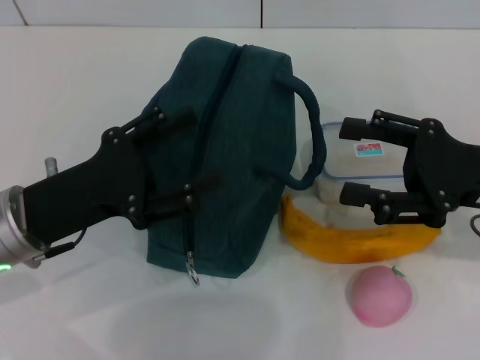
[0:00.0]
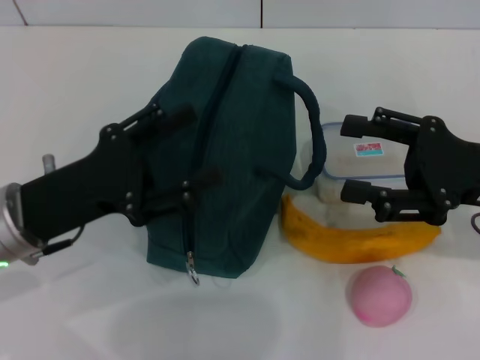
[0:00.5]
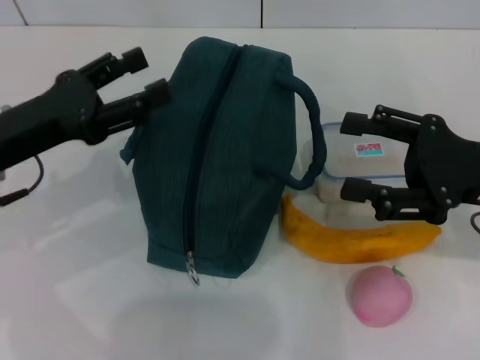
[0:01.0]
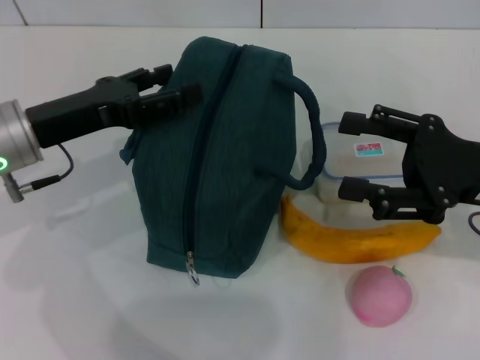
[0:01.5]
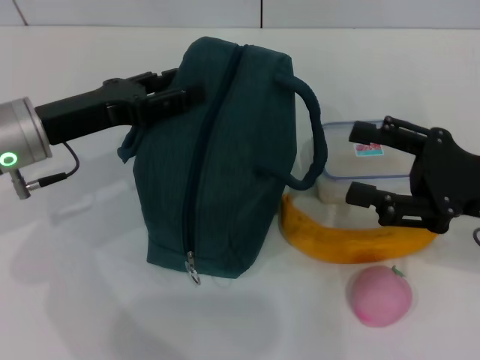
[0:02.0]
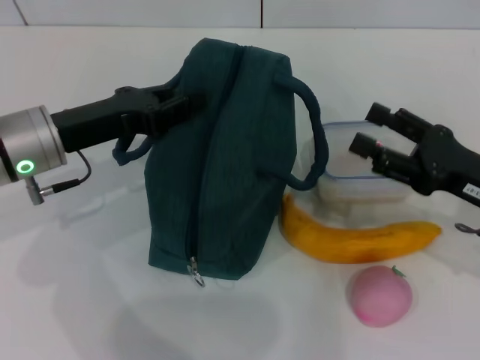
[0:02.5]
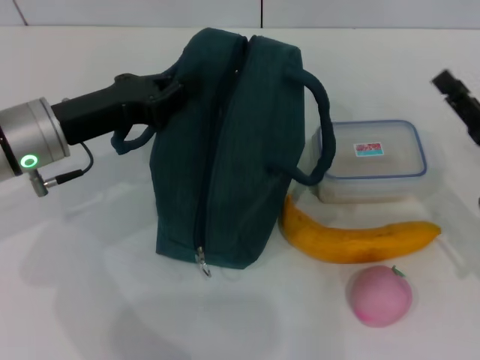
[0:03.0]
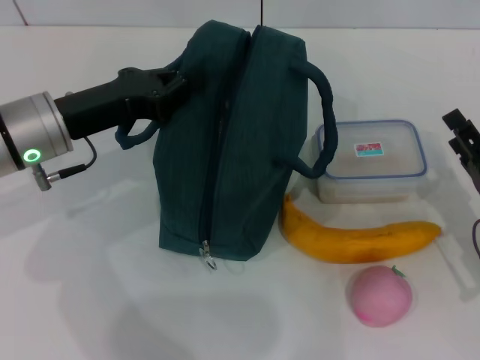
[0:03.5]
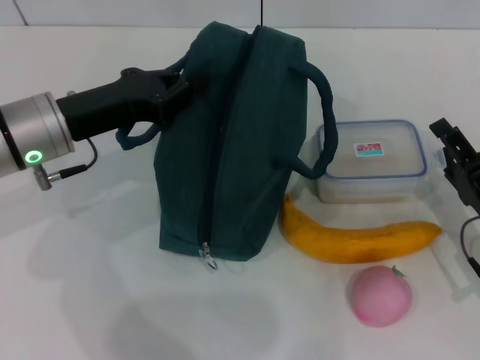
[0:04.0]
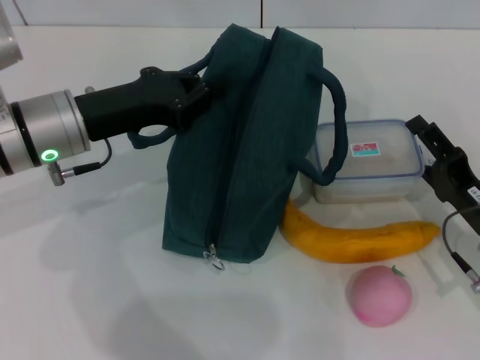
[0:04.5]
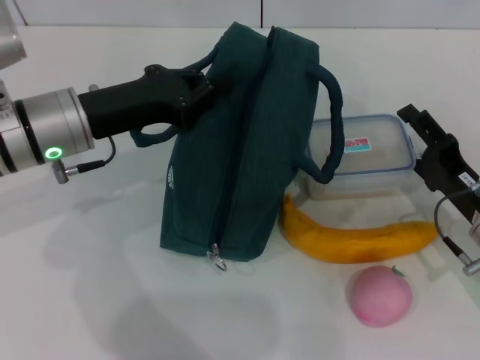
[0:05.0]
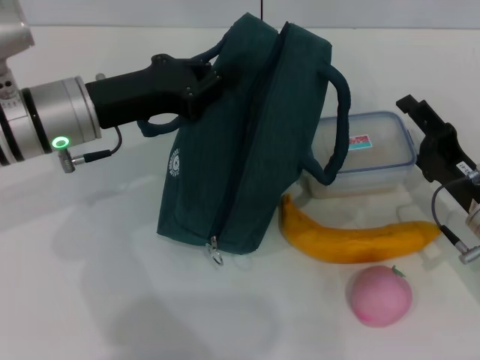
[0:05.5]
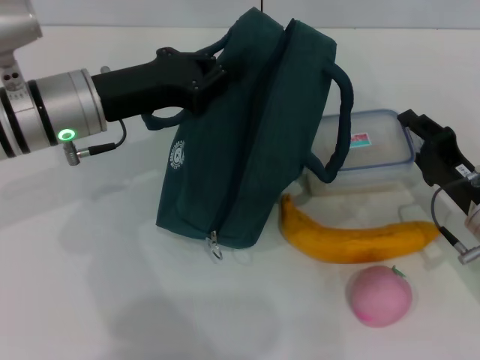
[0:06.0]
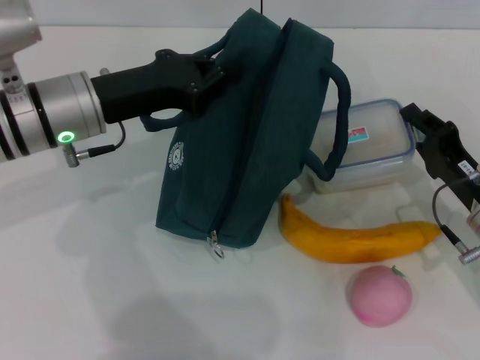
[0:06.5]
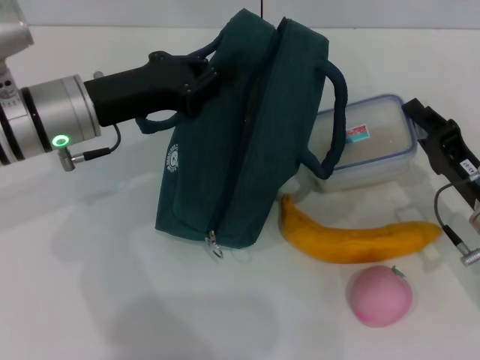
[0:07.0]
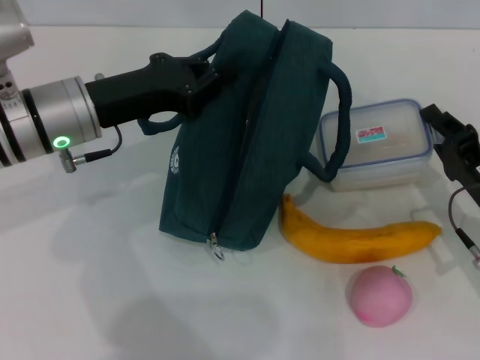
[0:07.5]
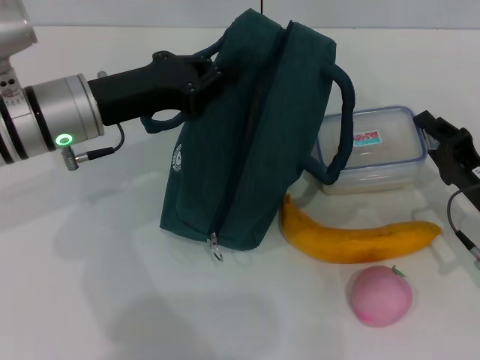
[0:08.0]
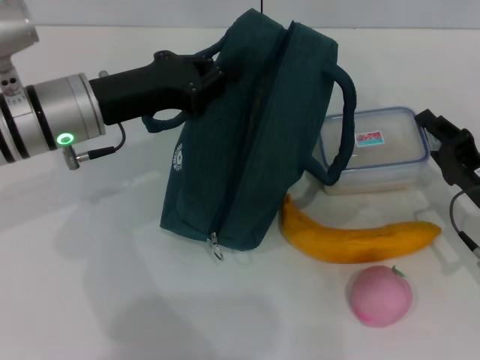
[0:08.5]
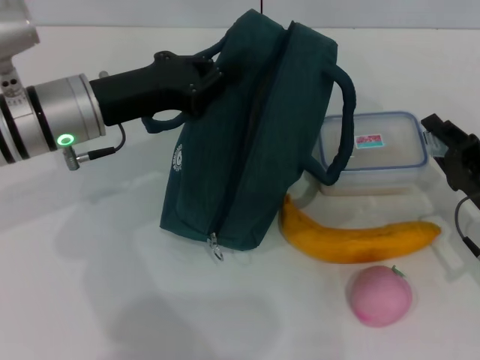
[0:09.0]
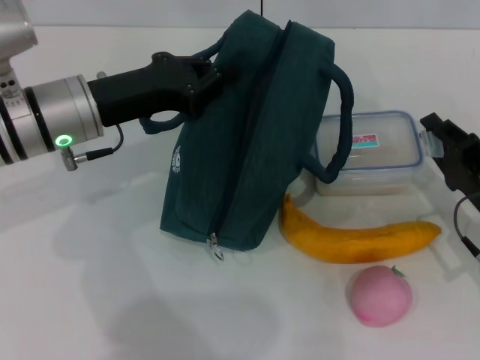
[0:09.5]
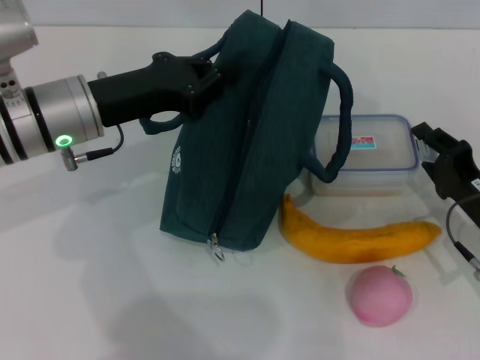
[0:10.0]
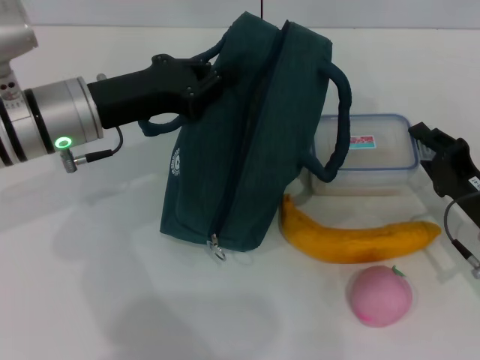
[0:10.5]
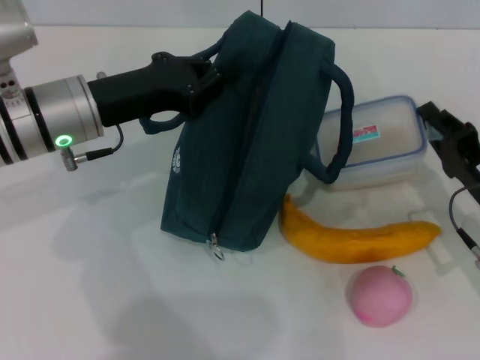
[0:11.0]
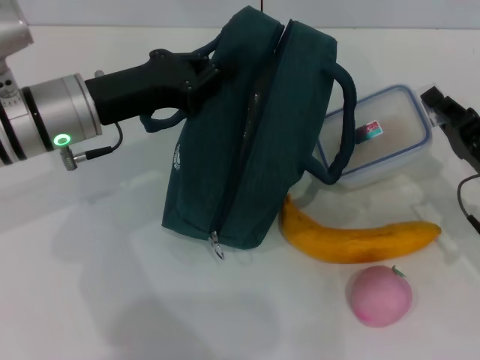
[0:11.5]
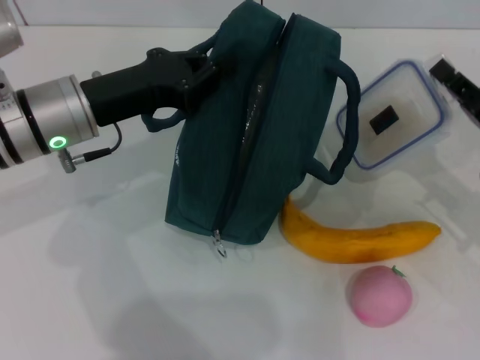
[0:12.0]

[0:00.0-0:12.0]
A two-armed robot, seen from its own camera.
Step, 0:00.0 to 0:03.5: Hold the lunch bag with your left hand.
Step, 0:04.0 to 0:10.5: Pick up the lunch box with your right hand.
0:00.0 to 0:02.0: The left gripper is displaced forward by about 10 cm.
0:02.0 to 0:04.0: The right gripper heads downward, covering about 10 cm, while the left gripper closes.
0:04.0 to 0:06.0: The grippers stay close to where they were, moving slightly.
0:06.0 to 0:08.0: The right gripper closes up.
0:08.0 to 0:10.0: The grippers make only small movements.
0:10.0 to 0:12.0: The right gripper is displaced upward by about 5 cm.

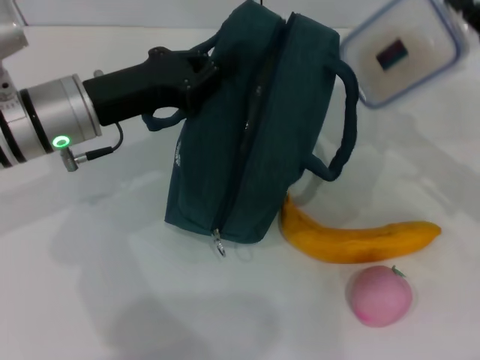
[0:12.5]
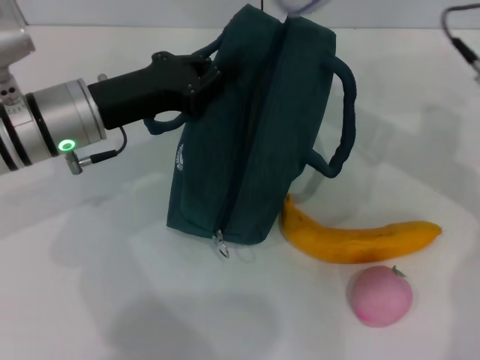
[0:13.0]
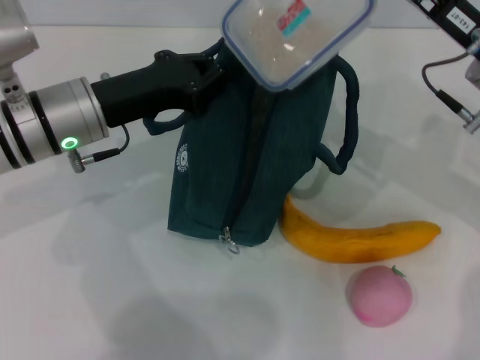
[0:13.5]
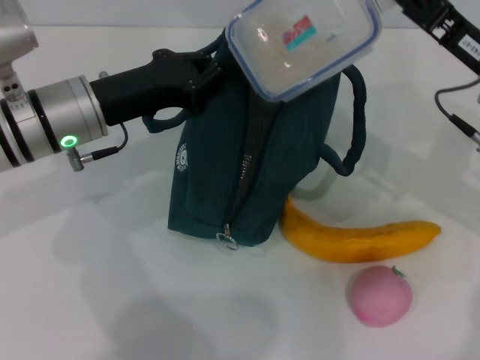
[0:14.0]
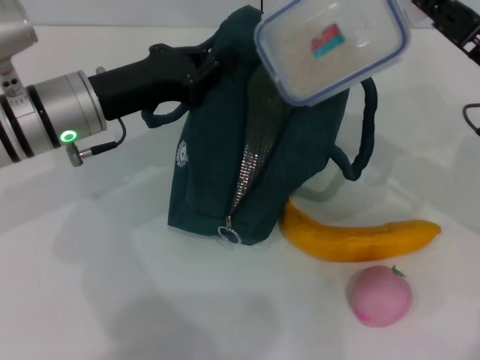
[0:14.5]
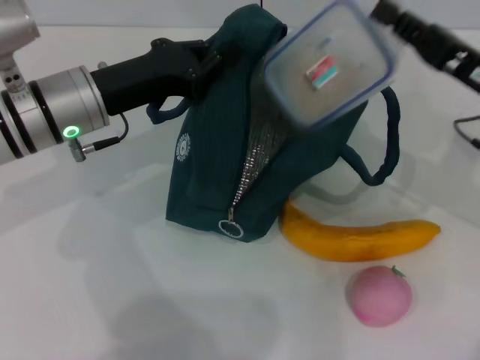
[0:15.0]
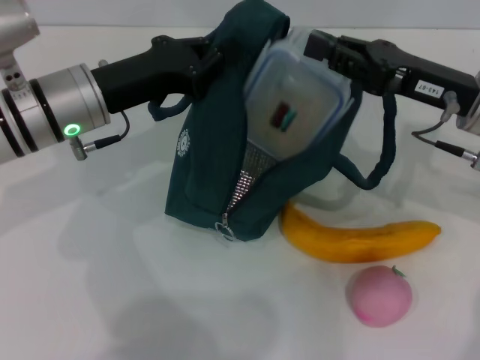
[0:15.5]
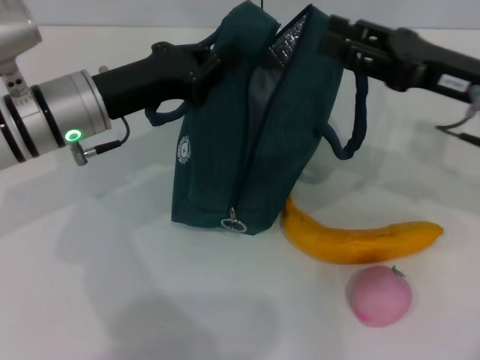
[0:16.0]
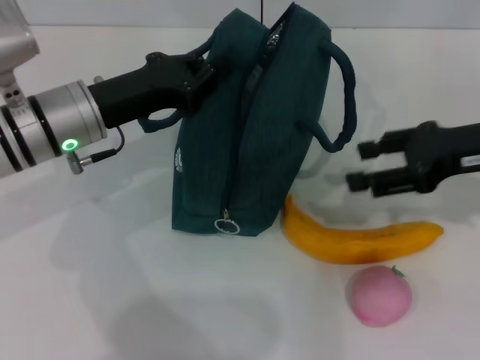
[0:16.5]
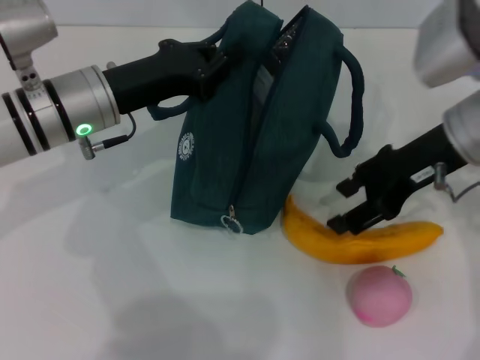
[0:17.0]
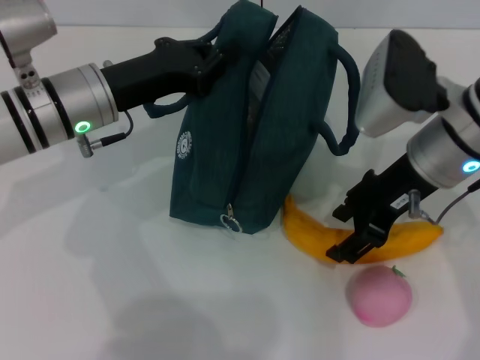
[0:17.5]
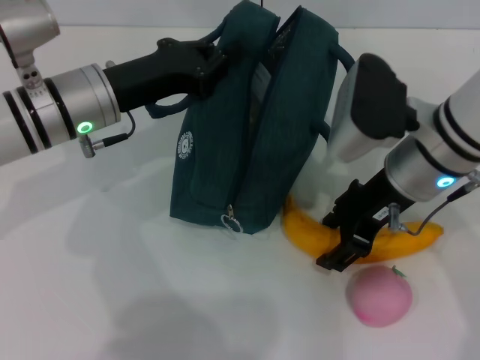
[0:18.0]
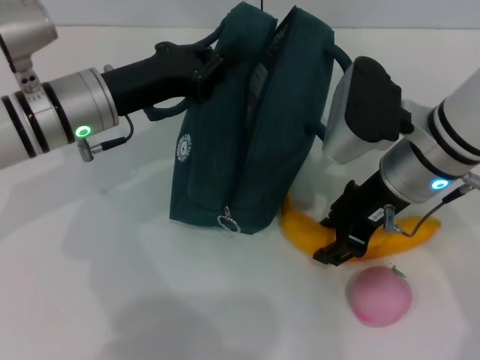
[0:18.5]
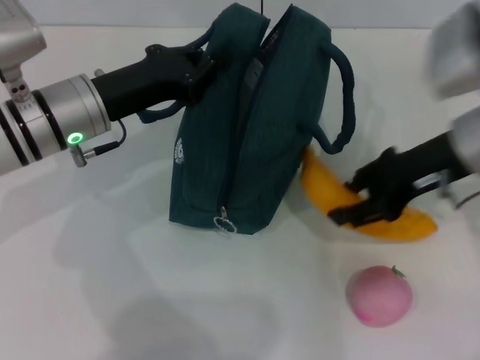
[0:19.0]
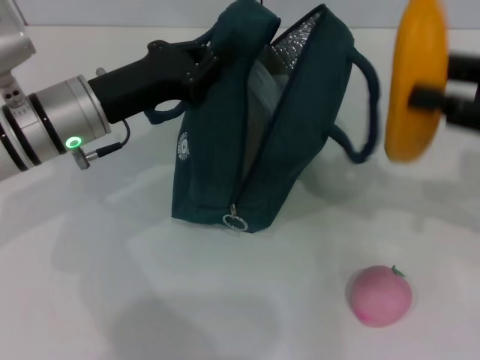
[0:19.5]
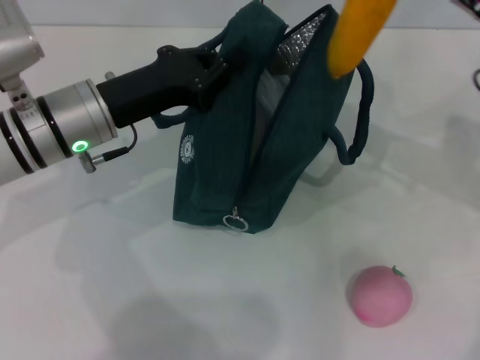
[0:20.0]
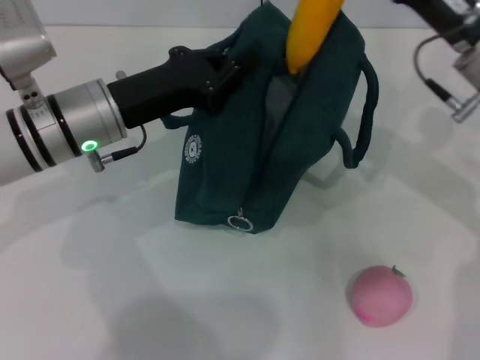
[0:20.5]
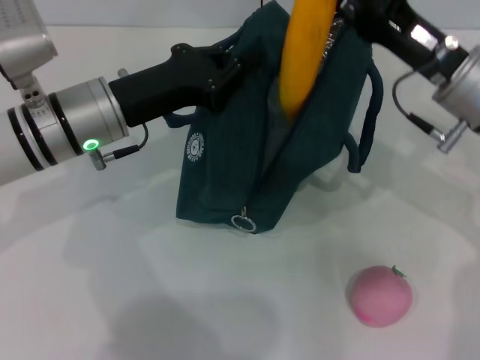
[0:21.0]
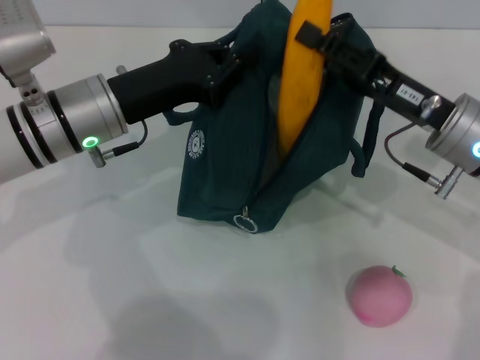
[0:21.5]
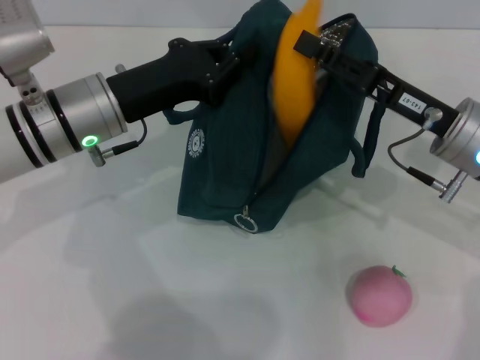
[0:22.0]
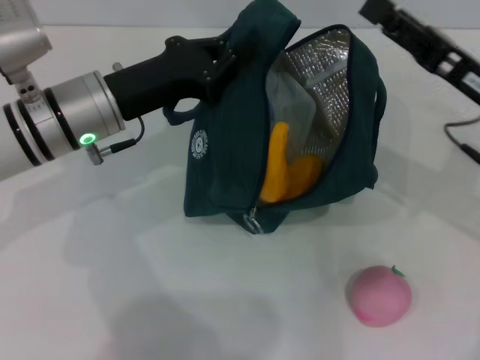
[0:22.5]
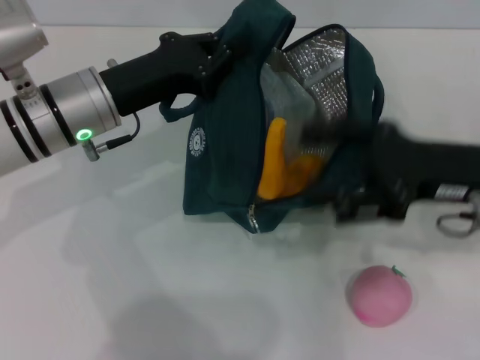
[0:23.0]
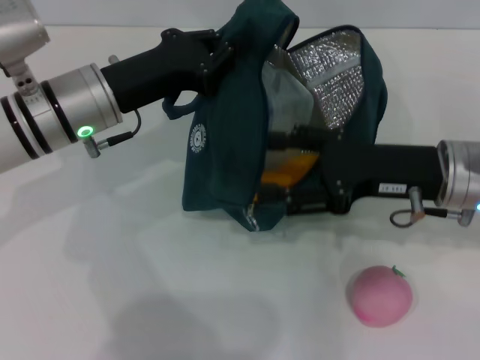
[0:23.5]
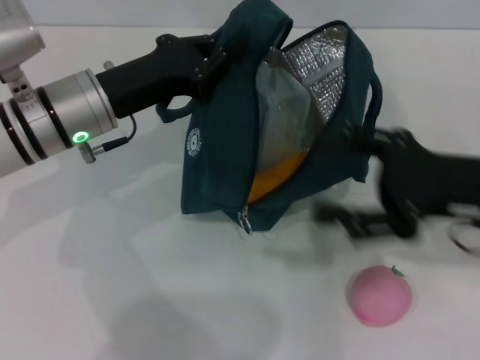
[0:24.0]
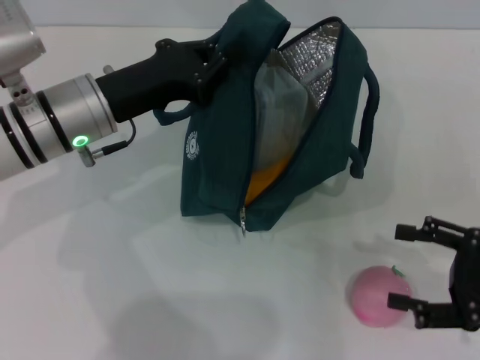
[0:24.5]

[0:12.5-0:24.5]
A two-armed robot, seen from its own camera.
Step, 0:12.5 to 0:15.5: Place the lunch box into the lunch bag with your right hand.
Step, 0:16.0 to 0:18.0: Take the banana with your right hand.
Step, 0:18.5 to 0:22.0: Put the banana into the lunch bag with your right hand.
0:14.5 to 0:16.5: The right gripper opens.
0:16.5 to 0:18.5: The right gripper heads to the left, covering roughly 10 cm.
0:18.5 to 0:20.5: The right gripper goes approximately 5 cm to the right.
0:20.5 to 0:22.5: The right gripper ends up about 5 cm from where it was, and opens up.
0:22.5 to 0:24.5: The right gripper heads backward and to the right, covering about 15 cm.

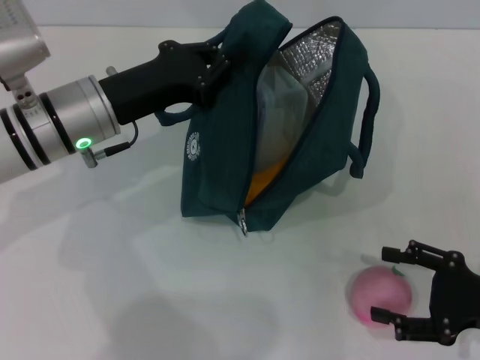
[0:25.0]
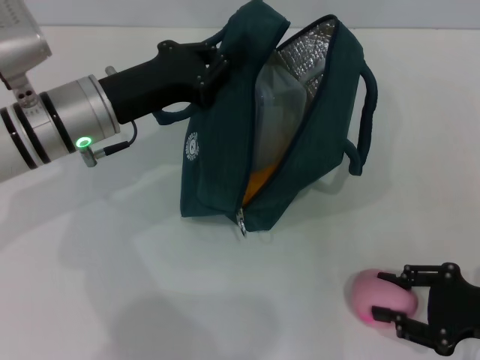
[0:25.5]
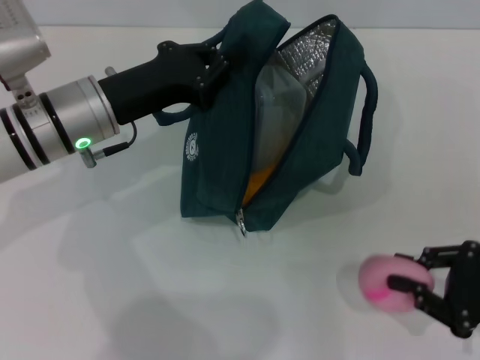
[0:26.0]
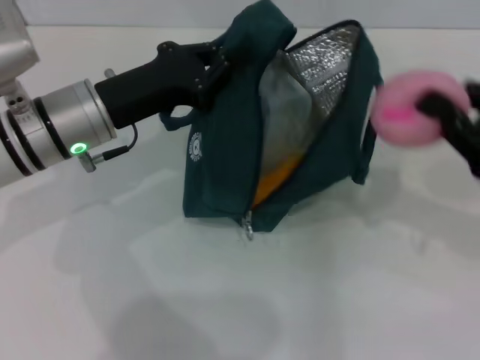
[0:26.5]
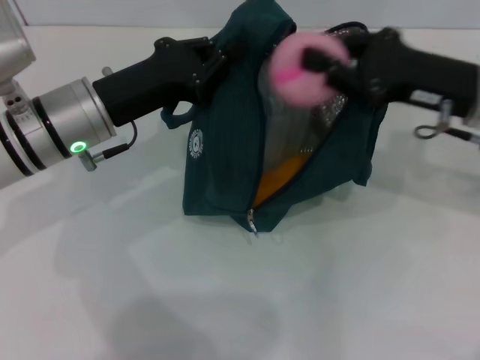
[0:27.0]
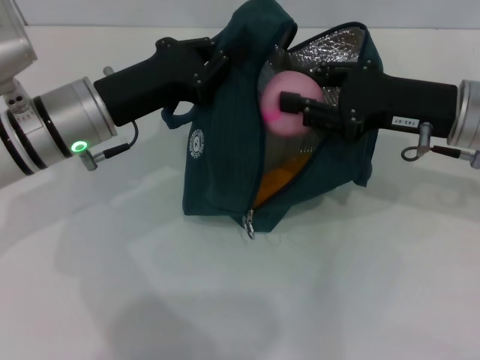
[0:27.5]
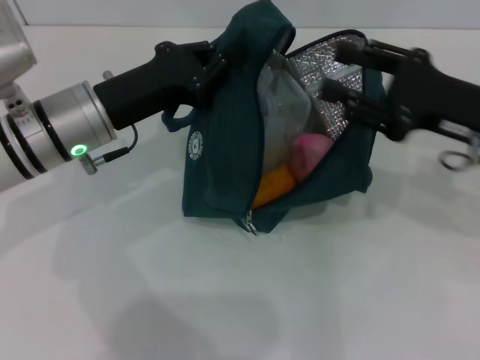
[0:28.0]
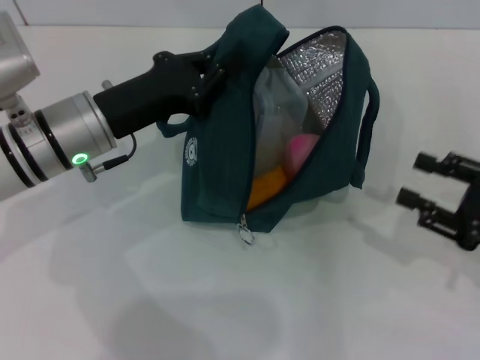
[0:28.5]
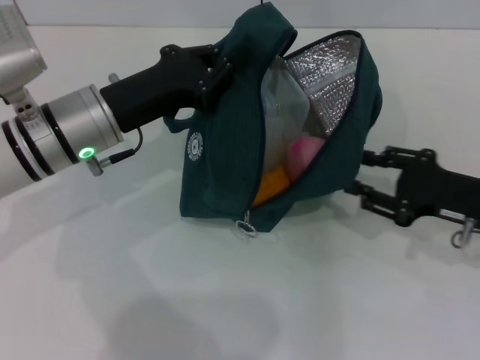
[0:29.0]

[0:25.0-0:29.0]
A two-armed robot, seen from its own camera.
0:25.0 to 0:27.0: The right gripper travels forward, upward and to the left by approximately 20 cm, and closes up.
0:27.0 to 0:29.0: The right gripper moves downward and backward, roughly 10 cm, and opens its fingers.
